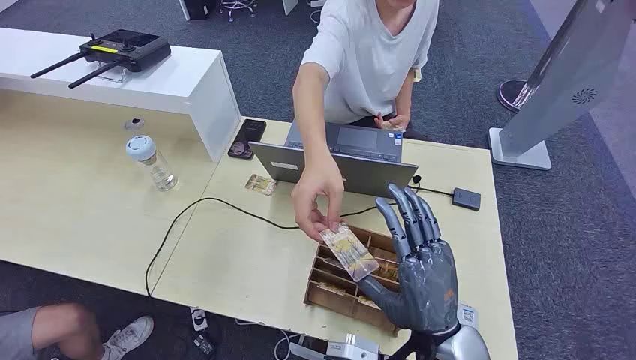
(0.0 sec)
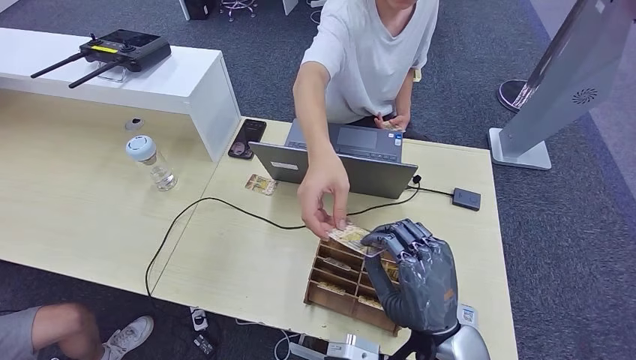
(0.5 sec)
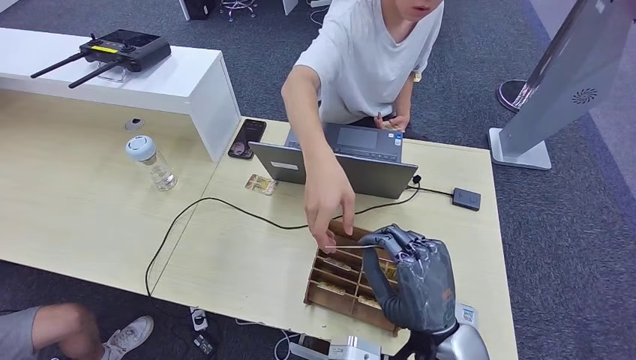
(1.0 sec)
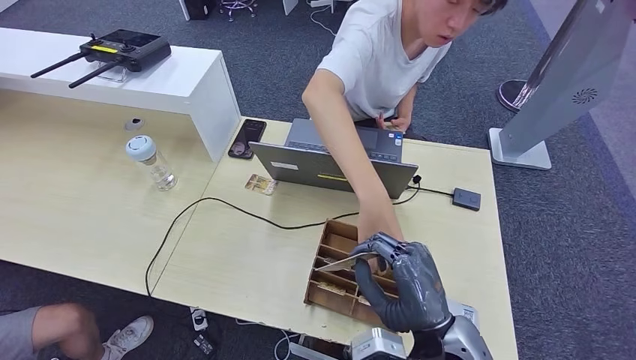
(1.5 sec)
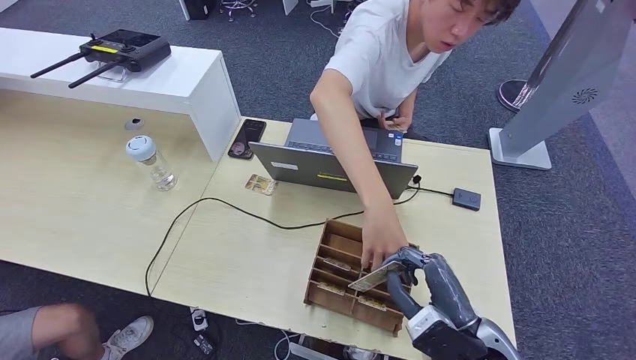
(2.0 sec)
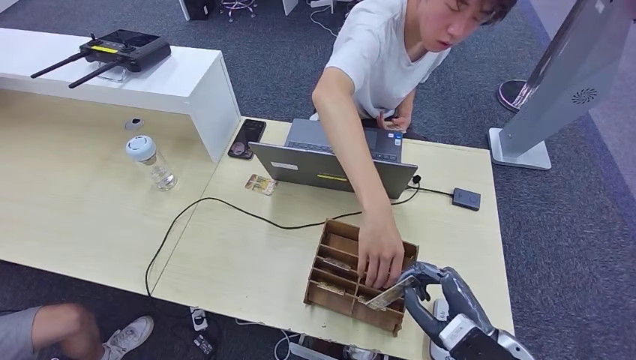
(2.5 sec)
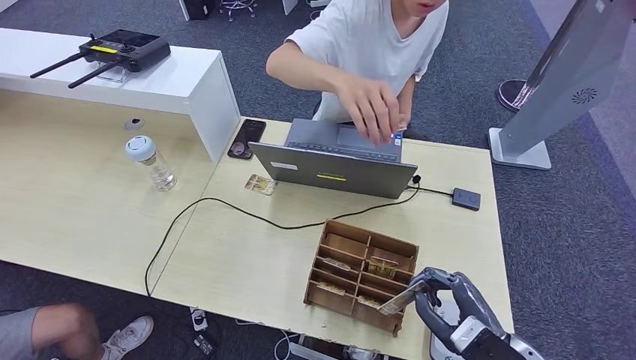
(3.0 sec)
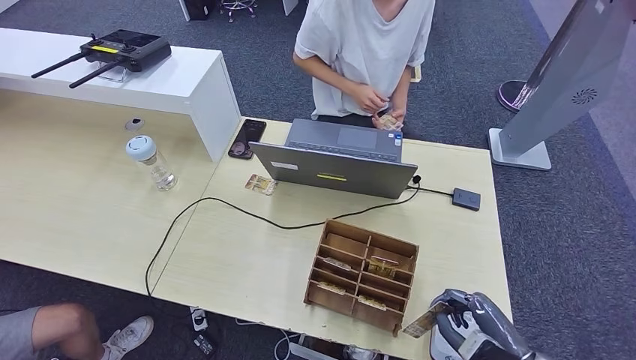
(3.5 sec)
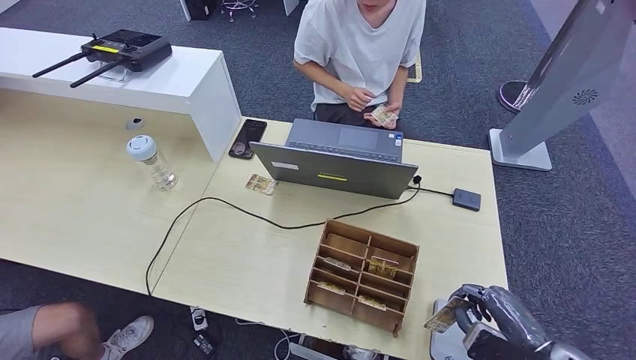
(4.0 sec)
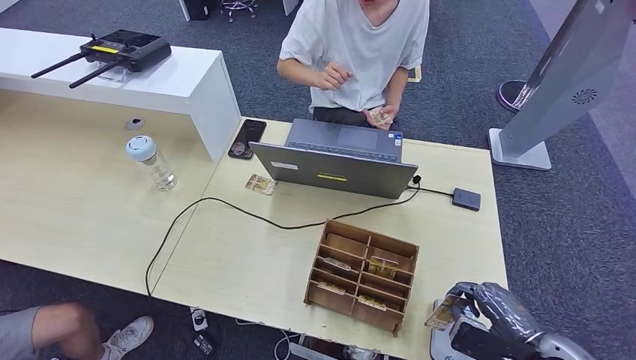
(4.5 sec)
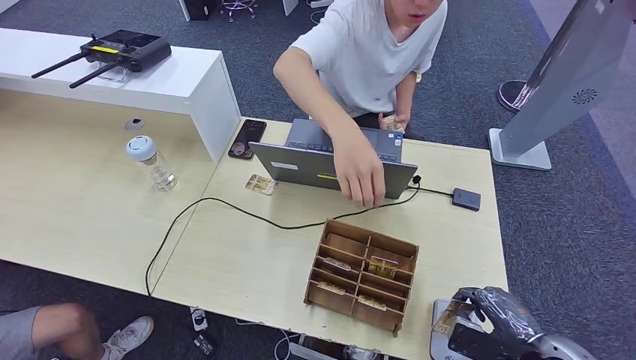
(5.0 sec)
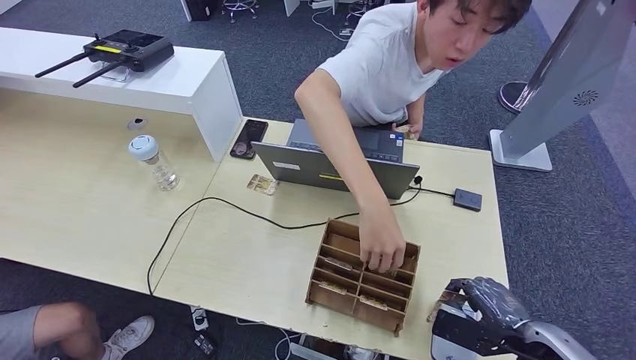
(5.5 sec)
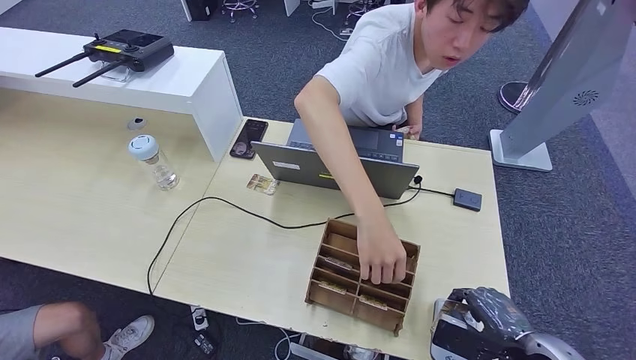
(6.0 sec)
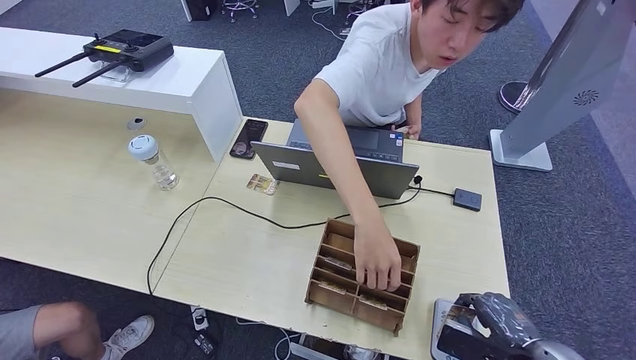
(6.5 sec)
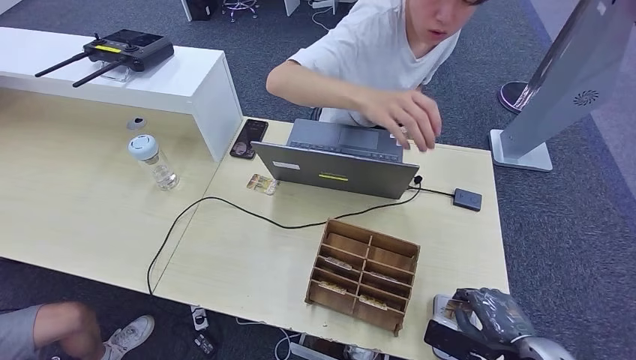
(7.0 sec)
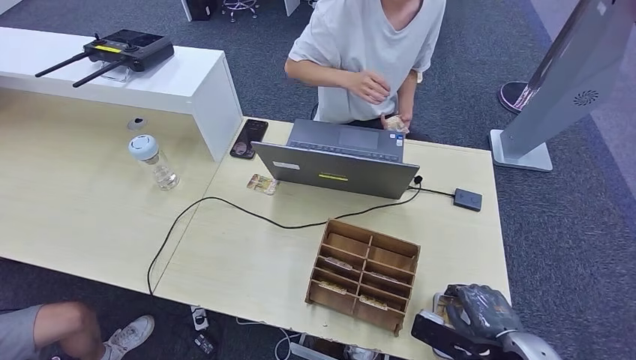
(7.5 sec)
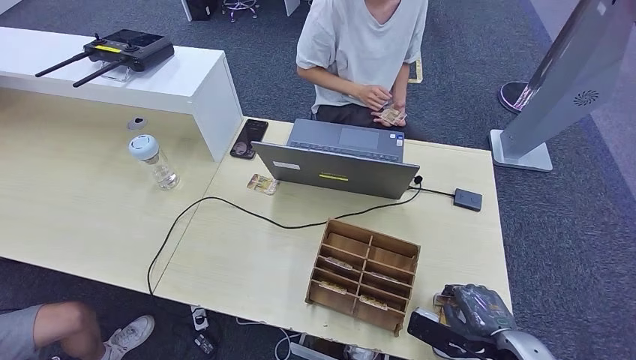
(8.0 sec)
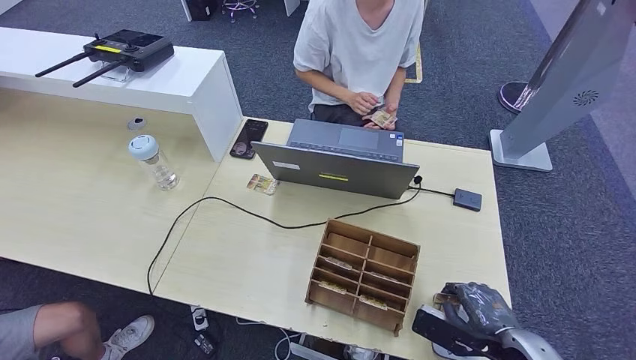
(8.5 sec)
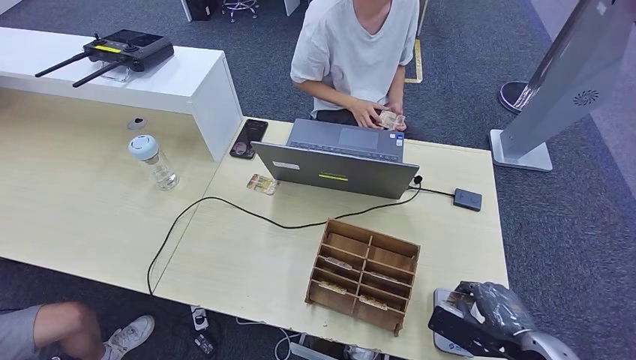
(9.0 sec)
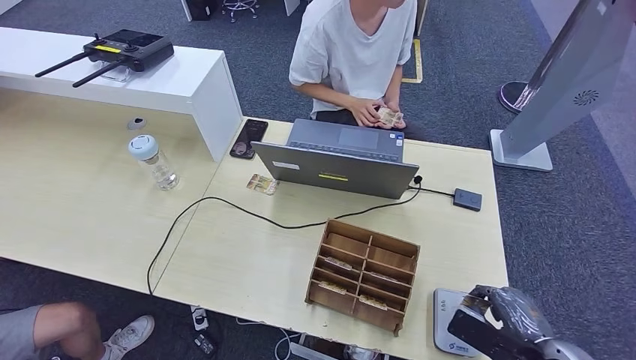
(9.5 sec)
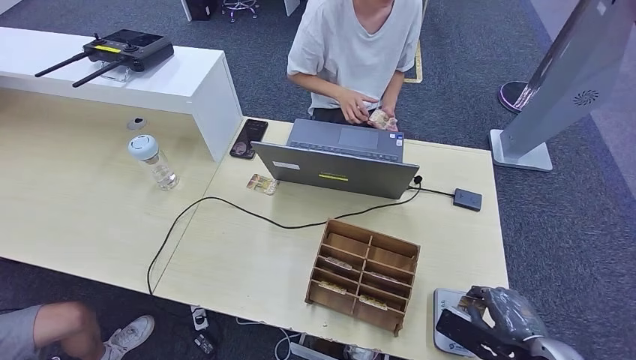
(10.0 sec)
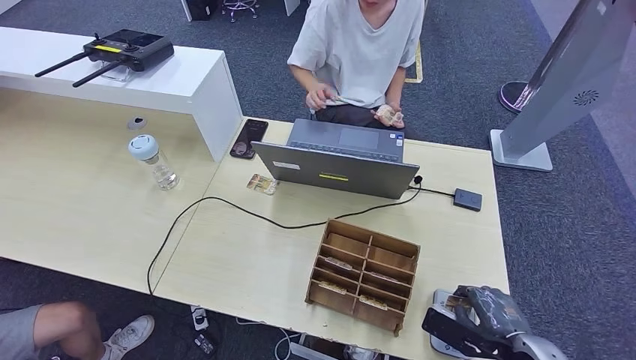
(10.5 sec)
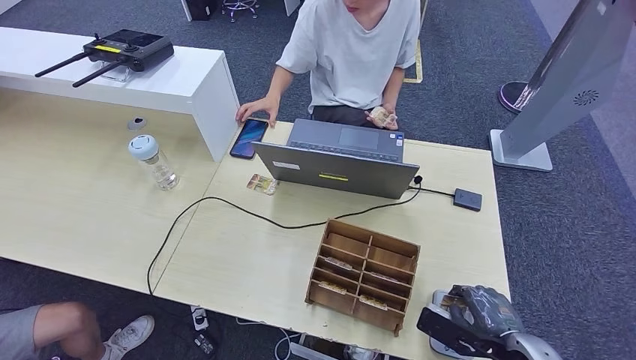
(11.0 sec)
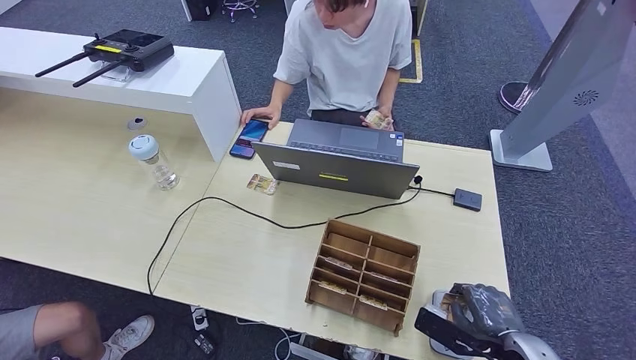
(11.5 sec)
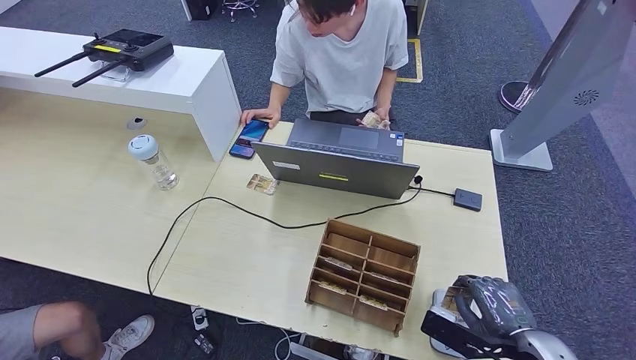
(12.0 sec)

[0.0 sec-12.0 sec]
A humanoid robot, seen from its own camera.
Step, 0.0 sec to 2.0 sec: Take the ID card from the person's hand.
2.0 sec to 4.0 sec: The right hand travels to the right by roughly 15 cm, while the left hand travels backward and to the left by about 10 cm.
4.0 sec to 6.0 sec: The left hand is displaced forward by about 15 cm.
6.0 sec to 12.0 sec: The hands move only a little.

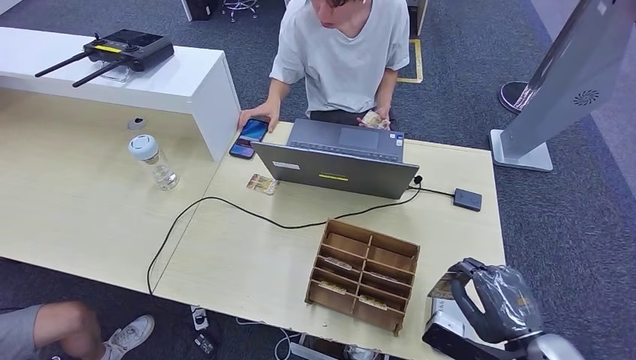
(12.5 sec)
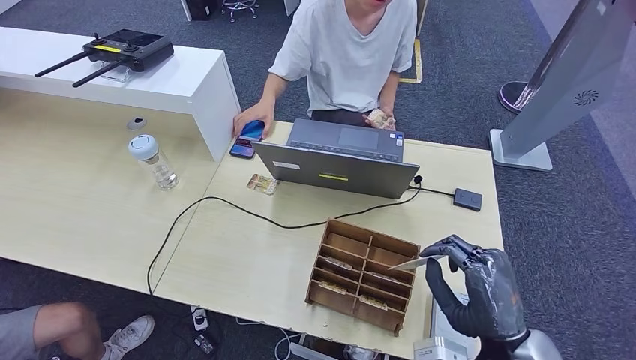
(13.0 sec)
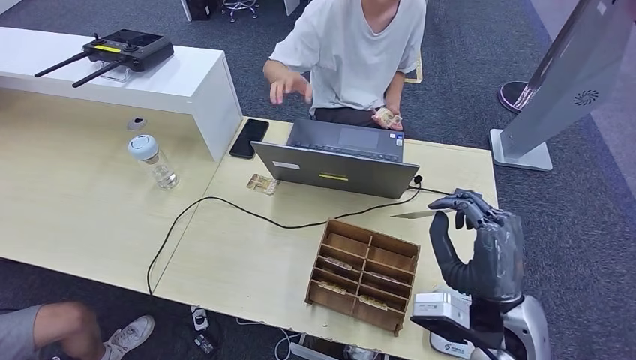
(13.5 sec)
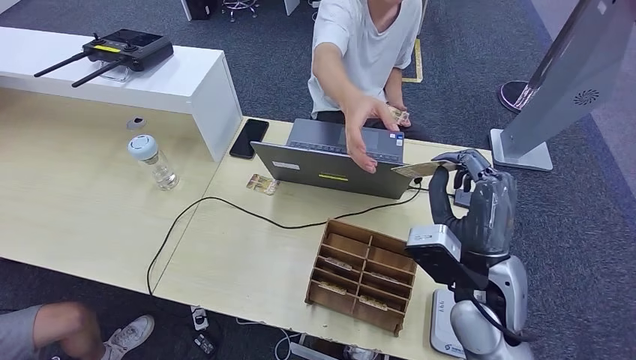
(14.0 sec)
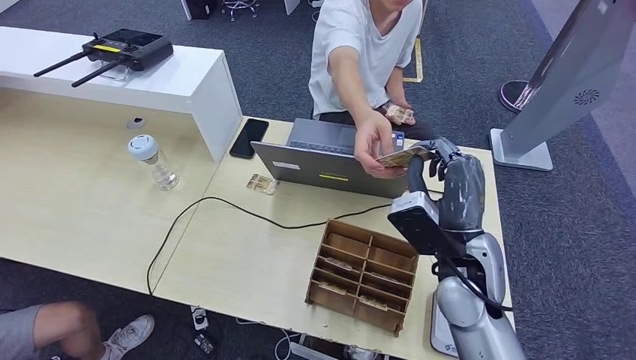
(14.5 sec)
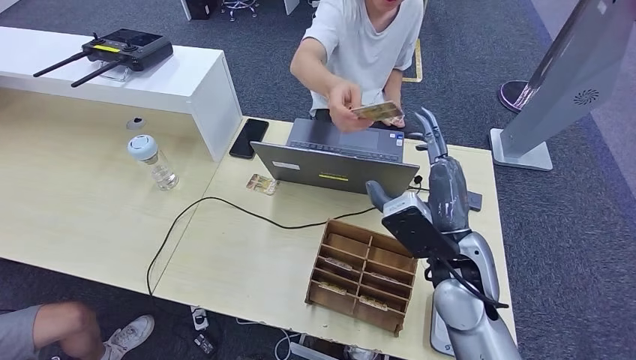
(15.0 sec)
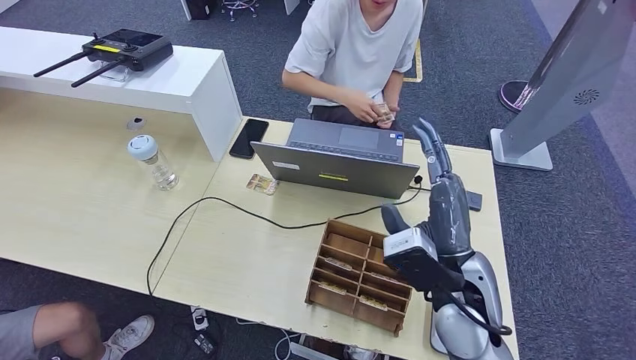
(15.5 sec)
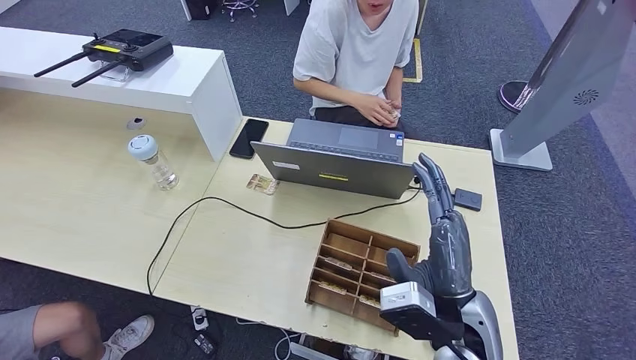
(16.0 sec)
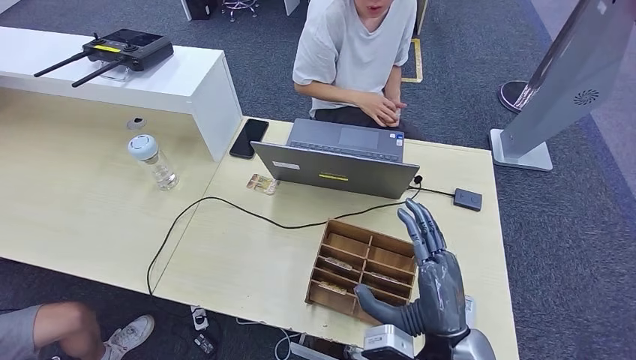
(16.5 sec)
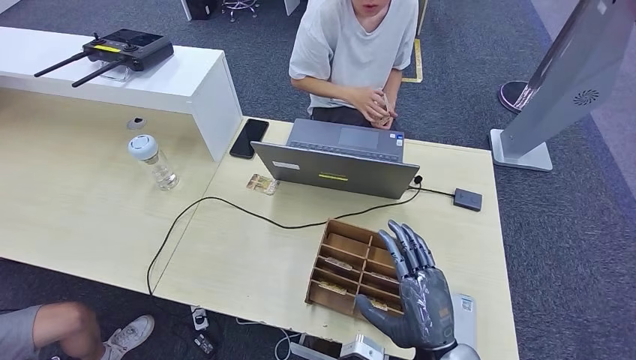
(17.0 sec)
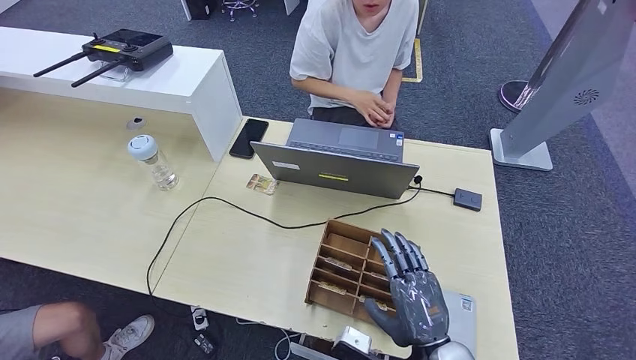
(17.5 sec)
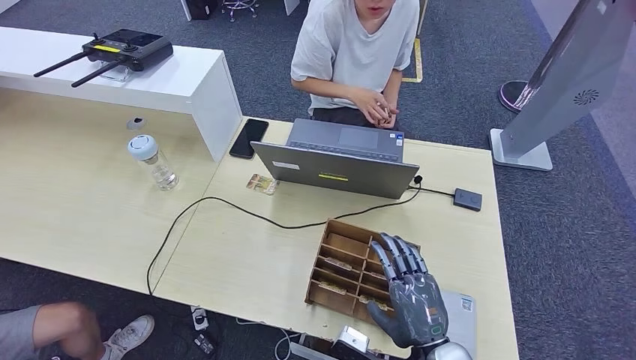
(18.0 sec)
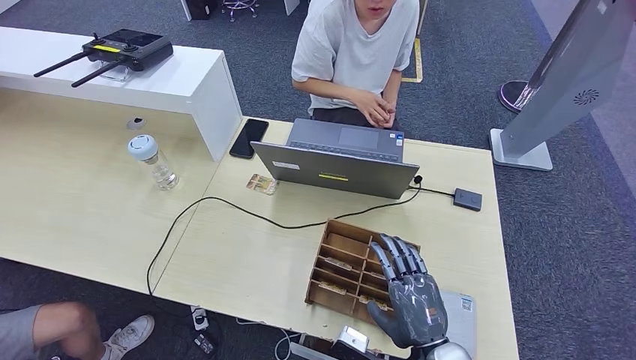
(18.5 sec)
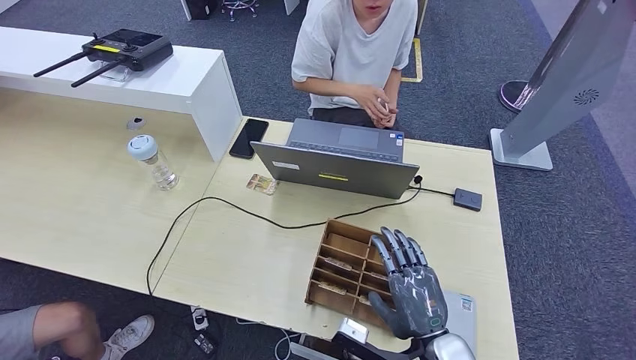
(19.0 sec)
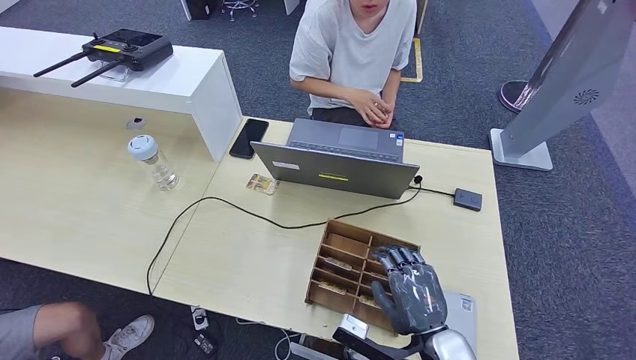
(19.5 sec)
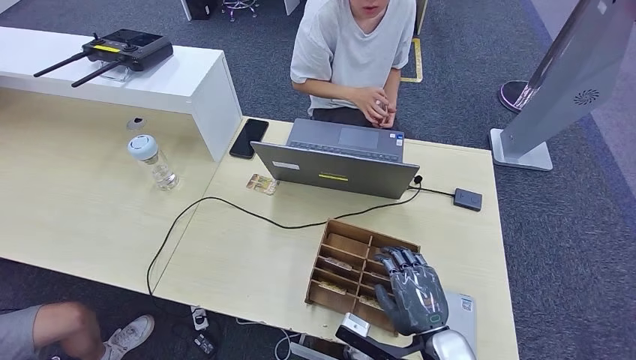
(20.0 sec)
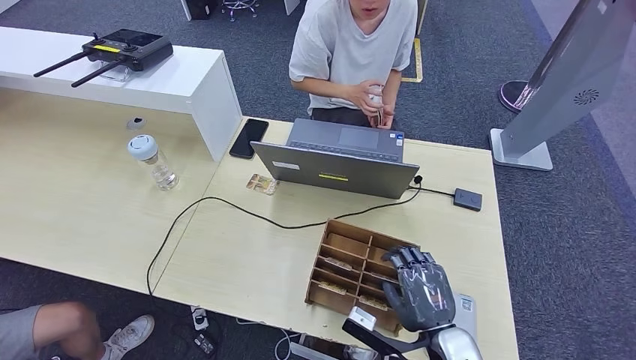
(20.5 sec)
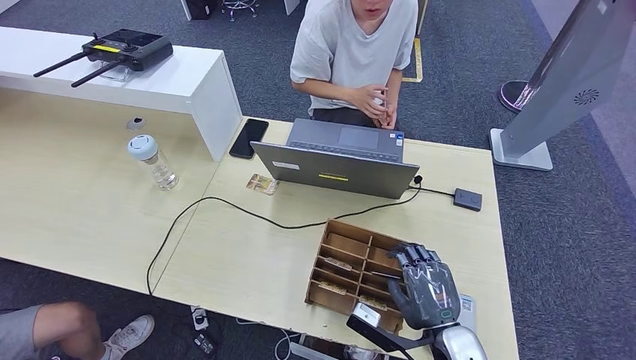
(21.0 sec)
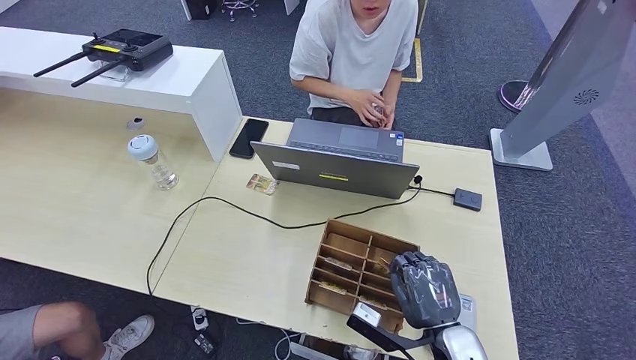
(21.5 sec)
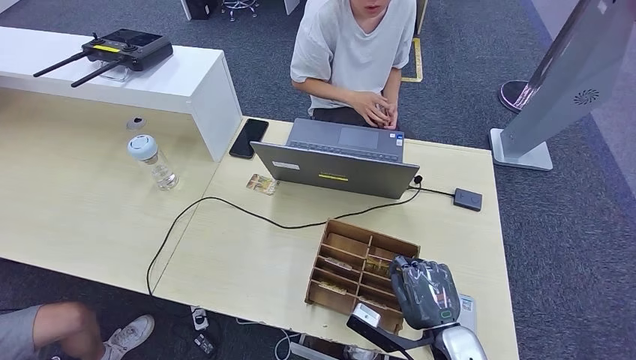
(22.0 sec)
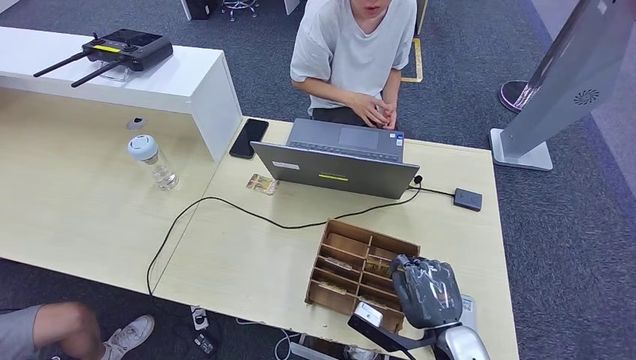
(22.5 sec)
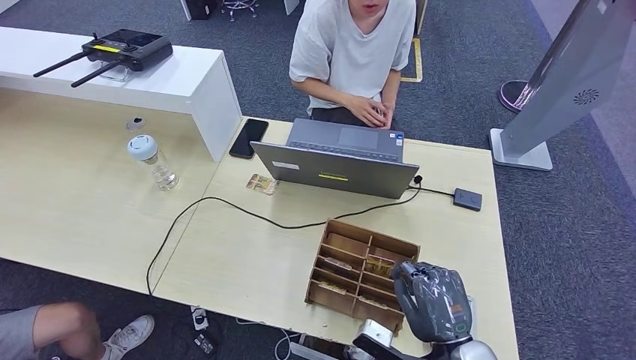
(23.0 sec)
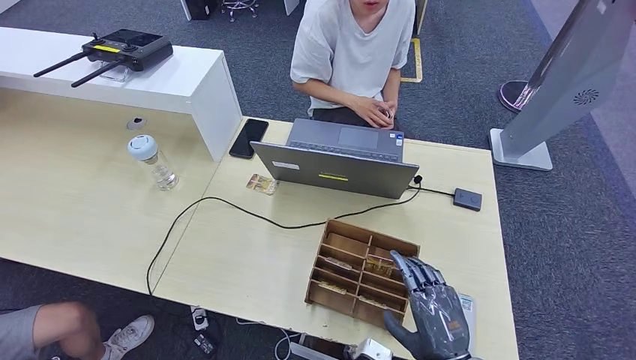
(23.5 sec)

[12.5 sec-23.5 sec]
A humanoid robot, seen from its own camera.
Step, 13.0 sec to 15.5 sec: Hand the ID card to the person.
12.5 sec to 14.5 sec: The left hand heads forward, covering some 5 cm. The right hand is displaced to the left, forward and upward by some 20 cm.
14.5 sec to 16.0 sec: The right hand goes some 10 cm backward.
16.0 sec to 18.0 sec: The right hand is displaced downward and backward by some 10 cm.
18.0 sec to 23.5 sec: The hands move only a little.
